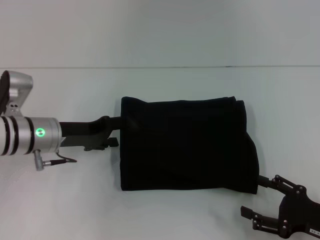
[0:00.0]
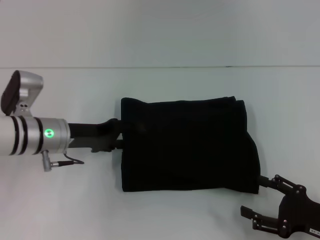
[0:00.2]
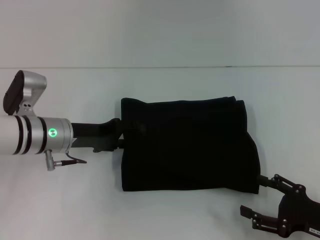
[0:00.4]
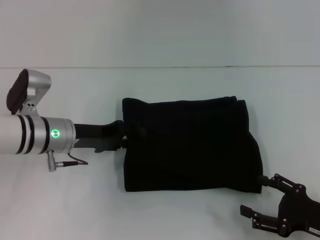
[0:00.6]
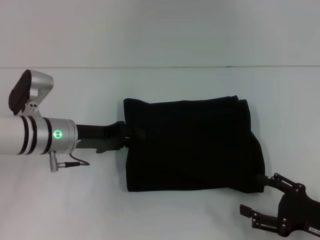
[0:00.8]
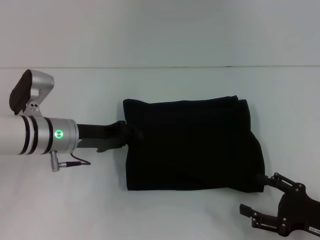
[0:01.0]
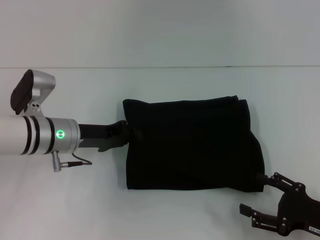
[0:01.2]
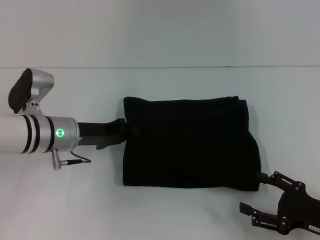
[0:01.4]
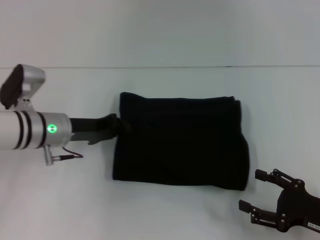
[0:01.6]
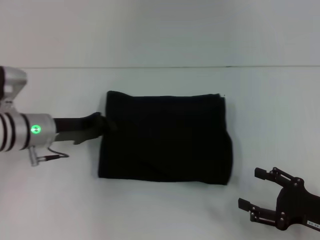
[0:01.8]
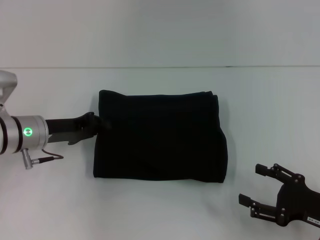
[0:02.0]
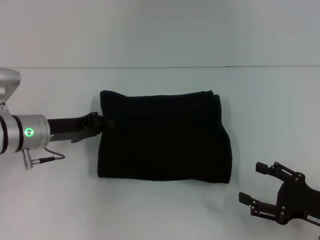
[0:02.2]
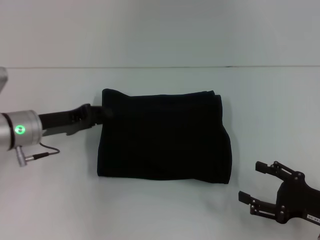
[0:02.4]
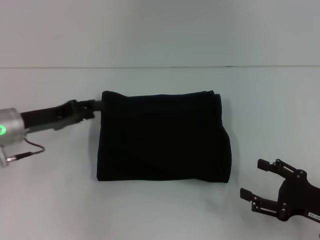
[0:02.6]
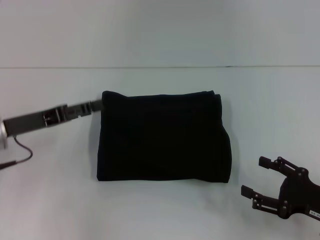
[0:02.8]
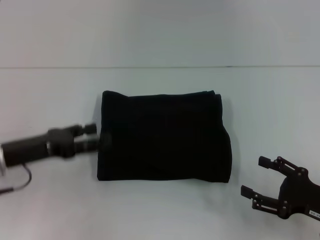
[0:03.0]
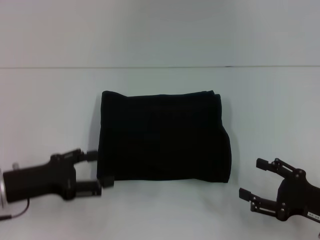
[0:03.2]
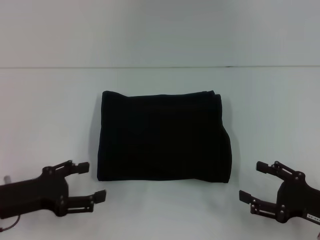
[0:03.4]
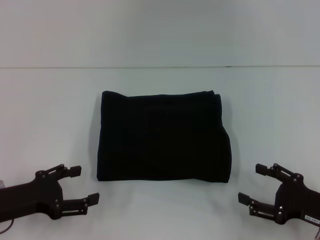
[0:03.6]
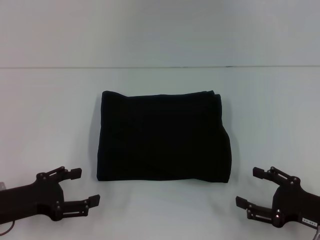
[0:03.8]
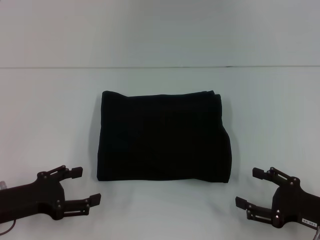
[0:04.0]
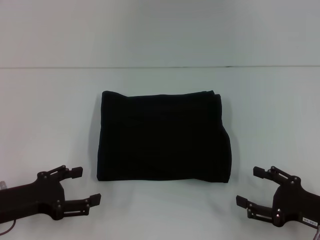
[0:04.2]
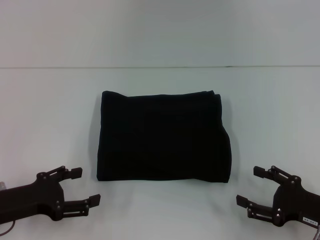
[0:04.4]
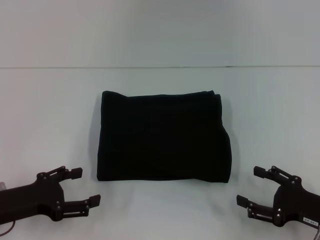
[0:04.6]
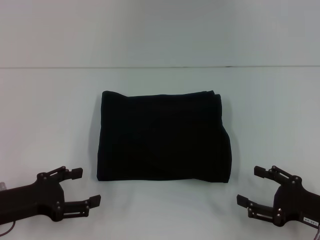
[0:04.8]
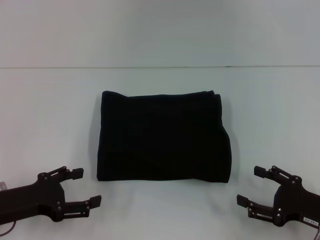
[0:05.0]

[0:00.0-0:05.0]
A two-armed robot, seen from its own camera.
0:00.0 to 0:01.6: The left gripper closes.
0:01.6 to 0:03.4: The left gripper heads backward and to the left, covering about 15 cm, and opens its fingers.
0:03.4 to 0:05.0: The two grippers keep their place.

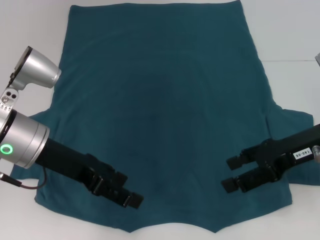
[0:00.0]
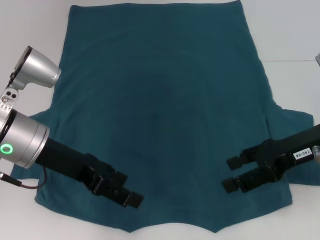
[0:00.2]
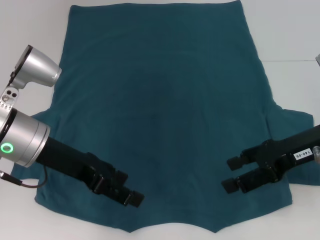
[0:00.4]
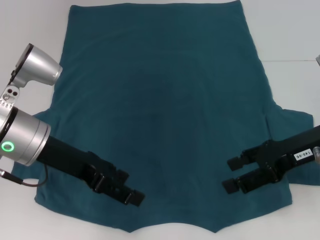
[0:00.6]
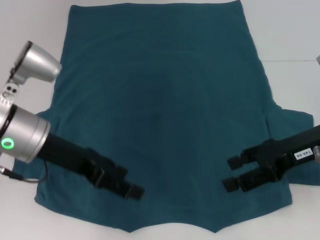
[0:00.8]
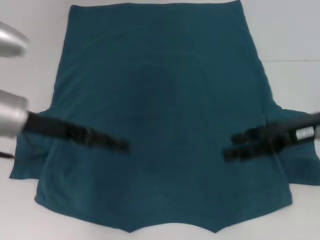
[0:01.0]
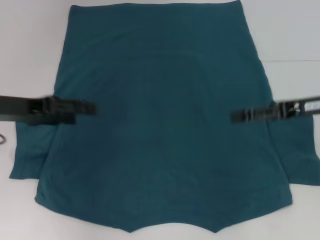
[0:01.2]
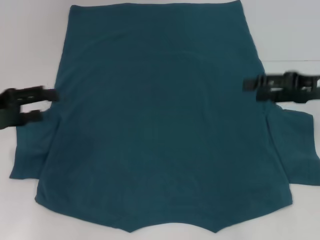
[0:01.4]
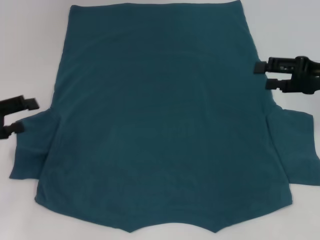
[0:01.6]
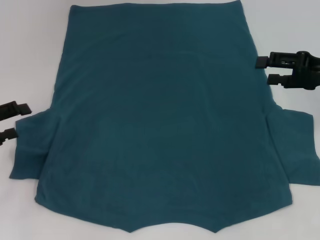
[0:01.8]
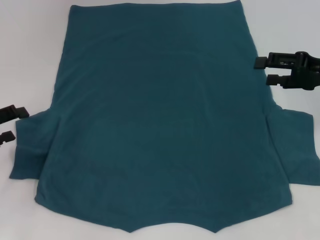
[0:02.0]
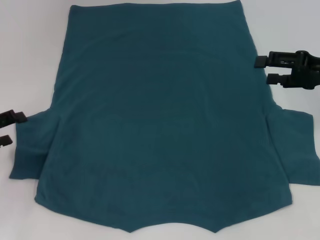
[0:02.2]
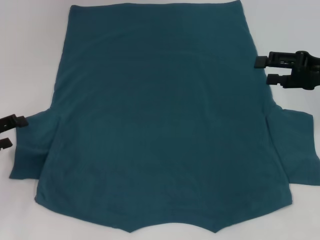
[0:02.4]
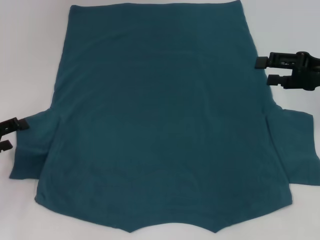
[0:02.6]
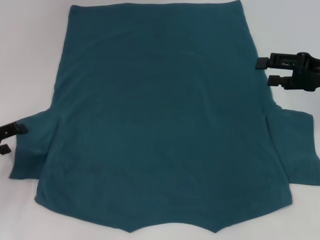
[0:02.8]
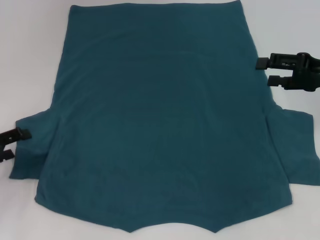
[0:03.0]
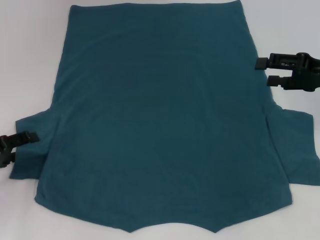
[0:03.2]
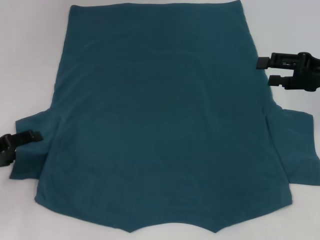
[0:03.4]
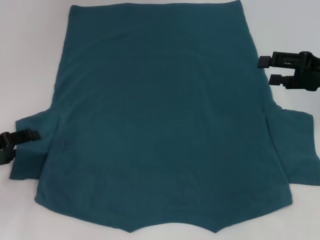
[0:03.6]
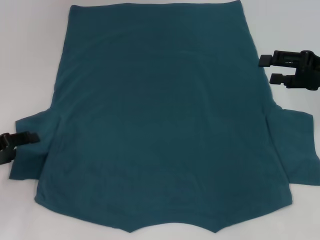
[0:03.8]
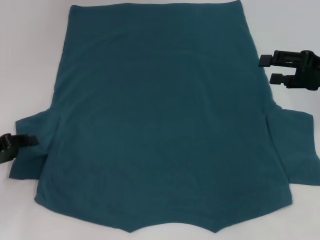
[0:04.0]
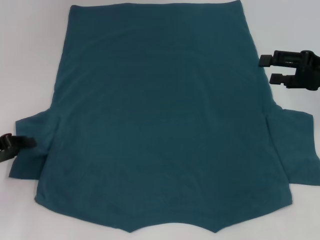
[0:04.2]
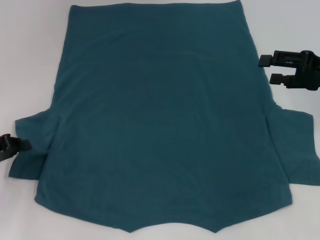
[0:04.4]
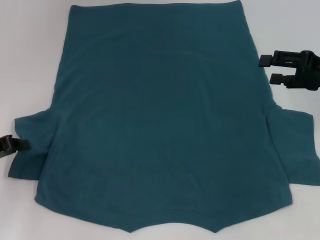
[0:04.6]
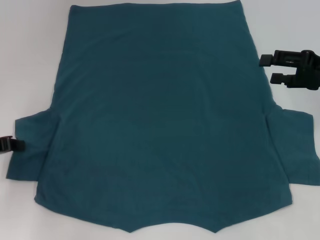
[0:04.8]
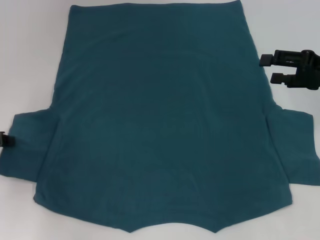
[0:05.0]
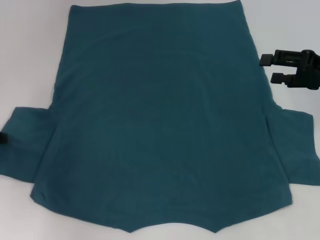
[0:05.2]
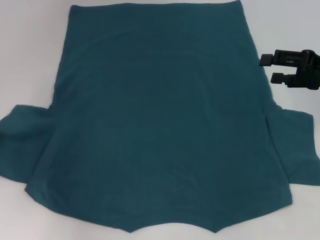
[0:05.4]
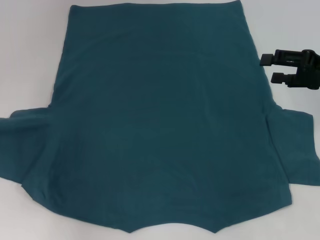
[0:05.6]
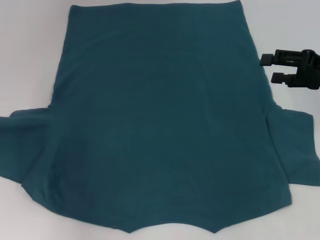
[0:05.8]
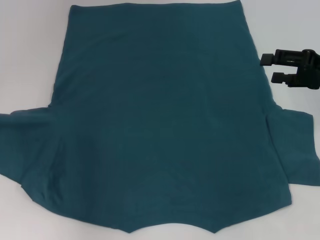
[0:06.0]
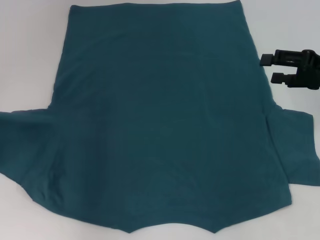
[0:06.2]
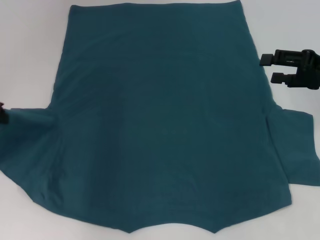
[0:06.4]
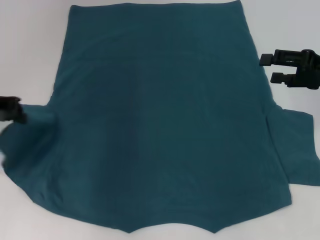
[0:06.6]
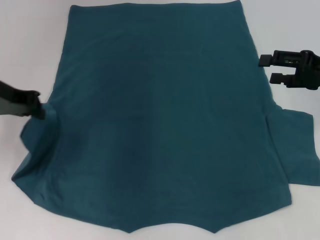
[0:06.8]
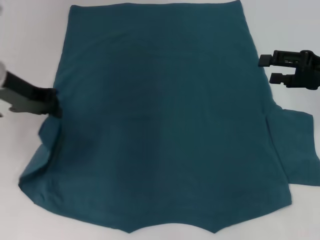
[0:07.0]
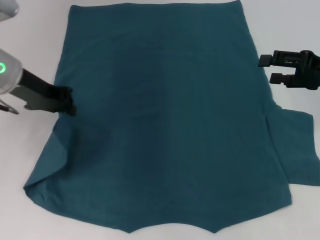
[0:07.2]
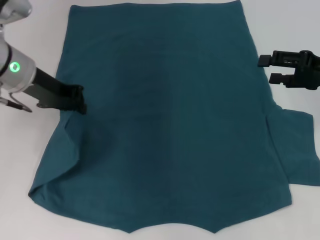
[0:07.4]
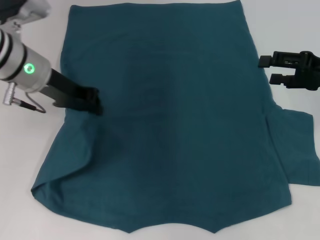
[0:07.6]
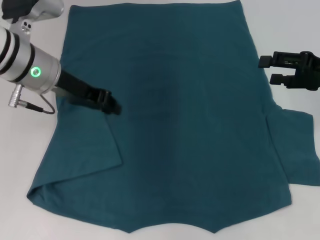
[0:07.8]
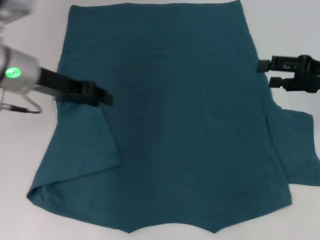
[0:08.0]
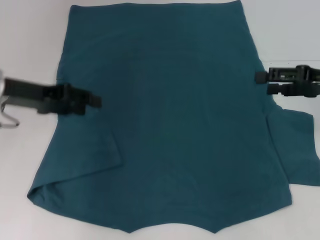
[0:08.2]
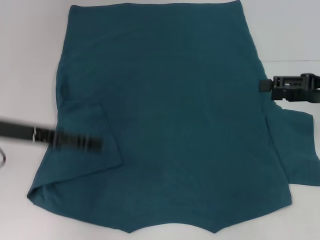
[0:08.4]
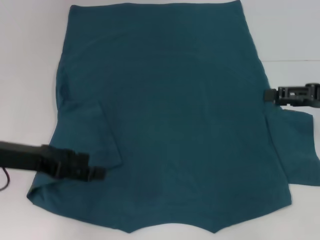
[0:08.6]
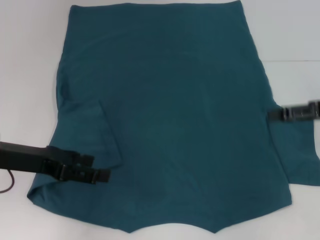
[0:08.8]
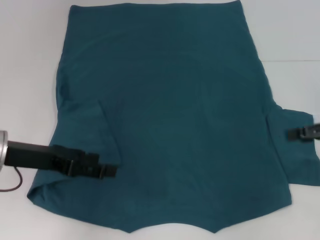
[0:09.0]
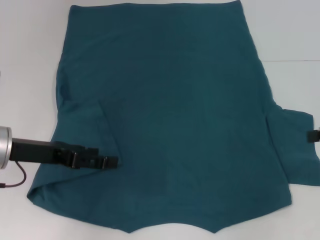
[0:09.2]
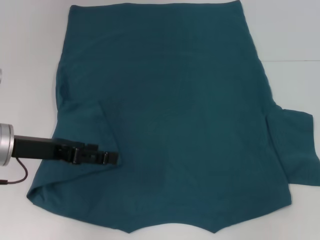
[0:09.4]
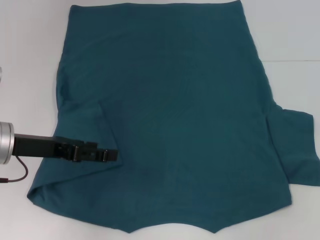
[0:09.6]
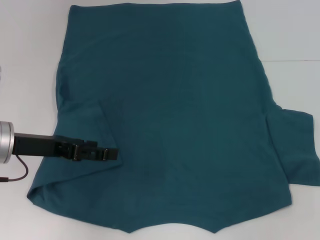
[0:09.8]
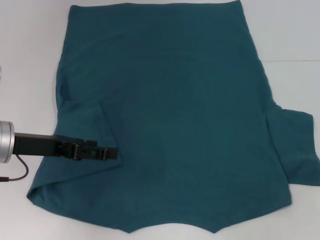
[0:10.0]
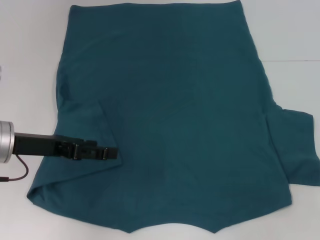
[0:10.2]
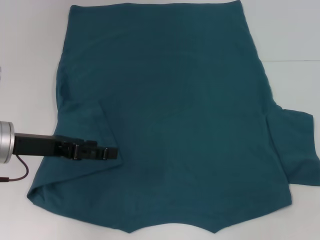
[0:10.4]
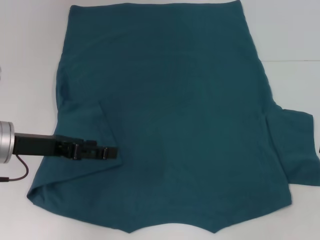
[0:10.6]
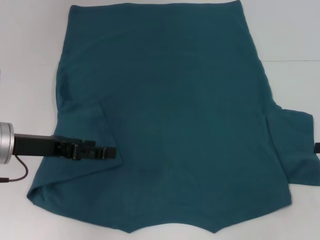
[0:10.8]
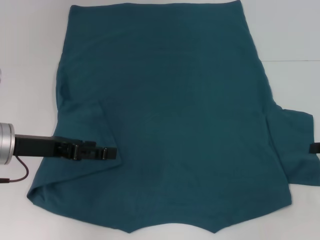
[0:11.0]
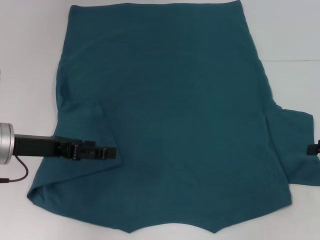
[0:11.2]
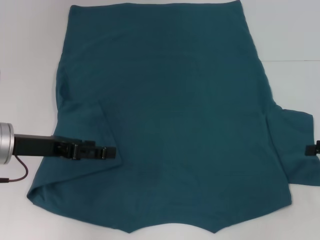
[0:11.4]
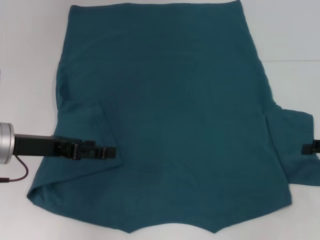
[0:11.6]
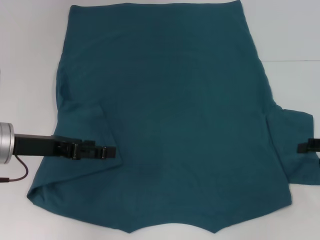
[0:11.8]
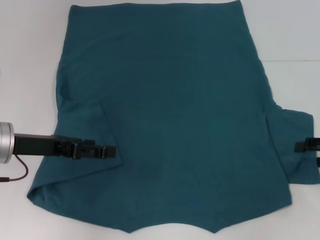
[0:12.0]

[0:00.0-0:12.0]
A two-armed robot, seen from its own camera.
Step, 0:00.0 to 0:07.8: Fold the bottom left sleeve with your left hand.
0:00.0 to 0:01.6: The left gripper shifts approximately 15 cm to the left. The right gripper moves to the right, about 5 cm.
0:01.6 to 0:03.0: The left gripper shifts roughly 5 cm downward.
0:03.0 to 0:04.4: The left gripper closes its fingers.
0:04.4 to 0:06.0: The left gripper travels upward and forward by about 10 cm.
0:06.0 to 0:07.6: The left gripper shifts about 15 cm to the right.
0:07.6 to 0:09.0: The right gripper ends up roughly 5 cm from where it was; the left gripper moves backward, to the left and downward, about 15 cm, and opens its fingers.

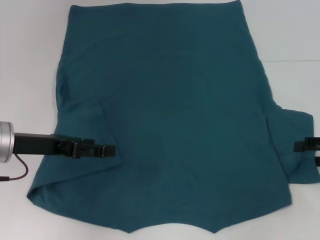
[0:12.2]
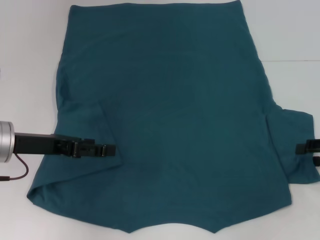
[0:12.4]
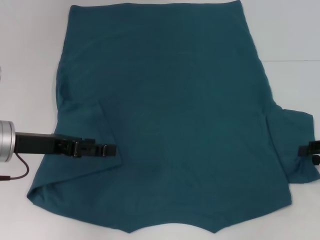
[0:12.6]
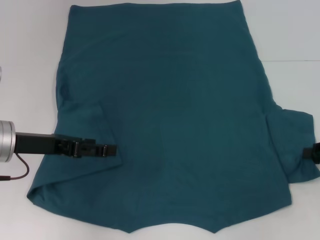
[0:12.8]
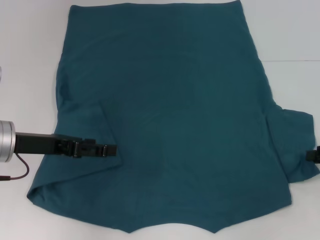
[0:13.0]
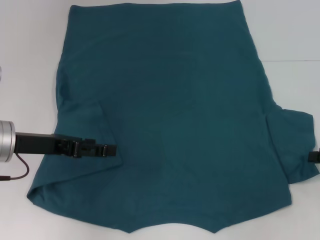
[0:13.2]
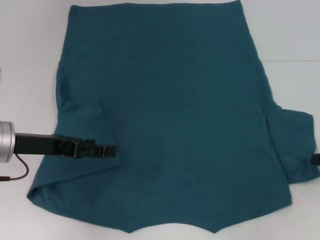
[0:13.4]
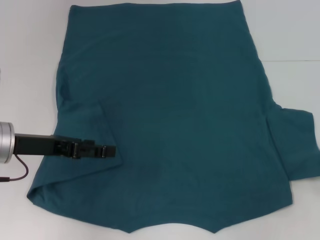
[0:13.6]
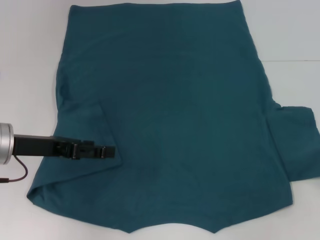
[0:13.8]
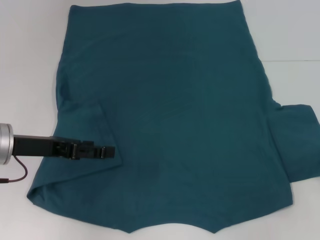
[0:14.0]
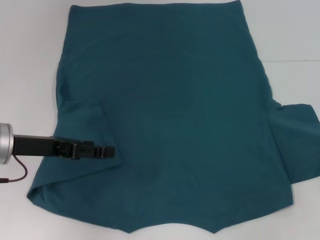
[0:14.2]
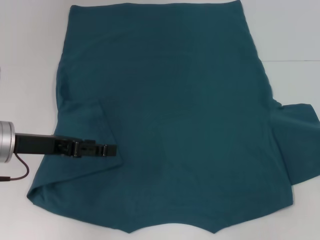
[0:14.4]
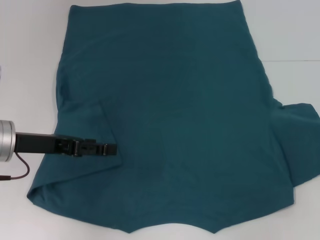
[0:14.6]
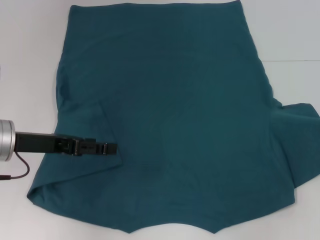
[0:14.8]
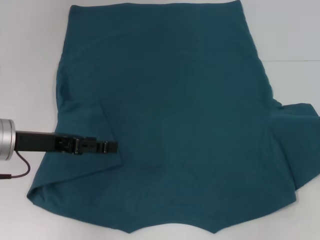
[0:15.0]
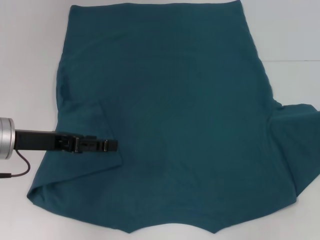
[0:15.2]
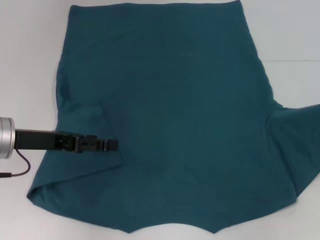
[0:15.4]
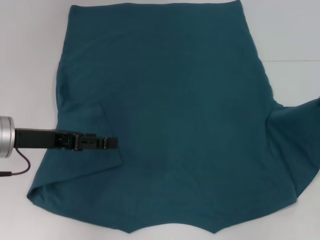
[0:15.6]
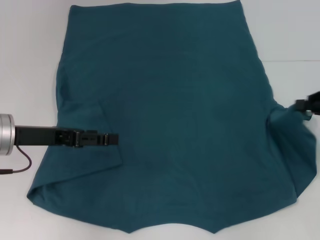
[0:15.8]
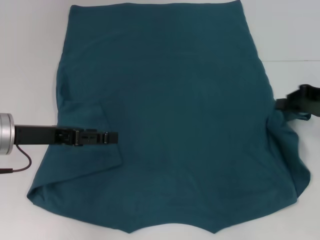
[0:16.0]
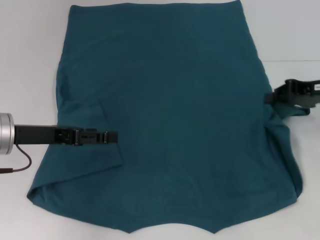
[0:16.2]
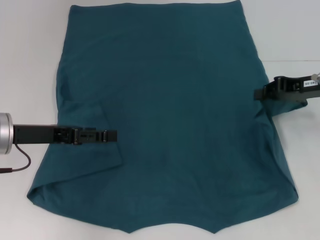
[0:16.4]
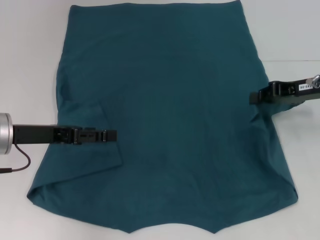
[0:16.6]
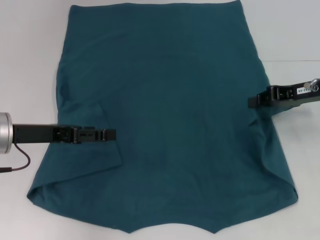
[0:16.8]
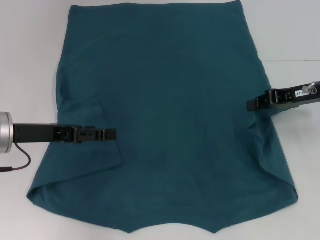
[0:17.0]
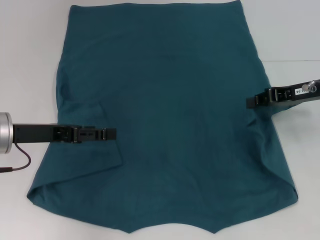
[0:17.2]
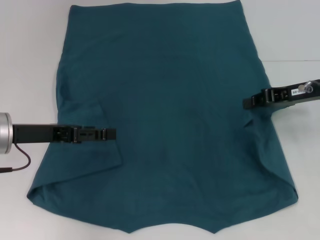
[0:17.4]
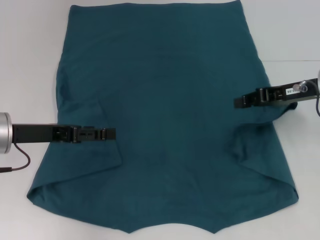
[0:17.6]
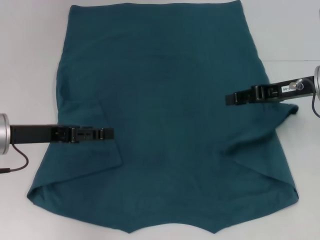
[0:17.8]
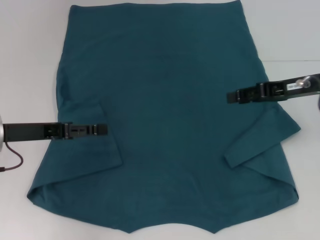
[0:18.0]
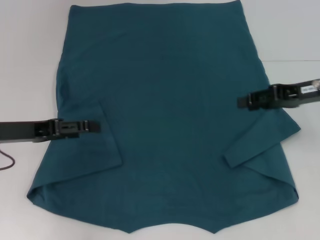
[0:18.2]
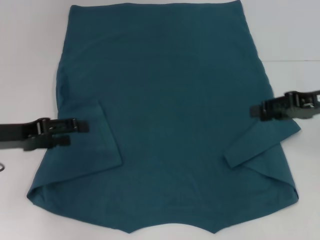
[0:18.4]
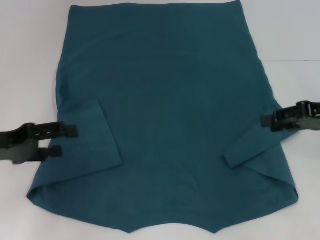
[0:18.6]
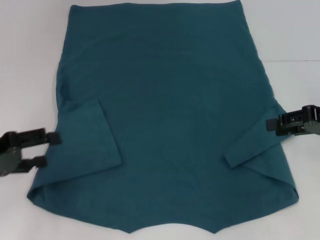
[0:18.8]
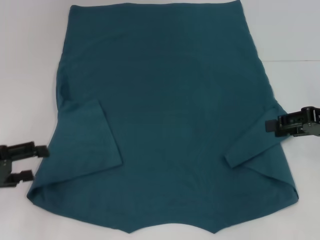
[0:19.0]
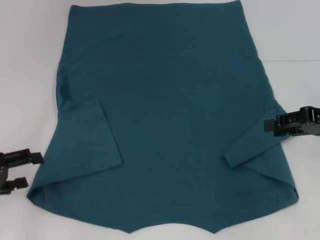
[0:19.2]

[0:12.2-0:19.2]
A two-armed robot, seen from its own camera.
Step, 0:12.2 to 0:18.0: Fold the bottom right sleeve to the right.
0:12.2 to 0:13.6: The right gripper closes up.
0:13.6 to 0:15.0: The right gripper changes place by about 5 cm.
0:15.0 to 0:16.4: The right gripper travels to the left and forward by roughly 15 cm.
0:16.4 to 0:17.8: The grippers make only small movements.
0:17.8 to 0:19.2: The right gripper travels to the right by about 5 cm, and opens. Meanwhile the left gripper is displaced to the left and backward by roughly 10 cm.
